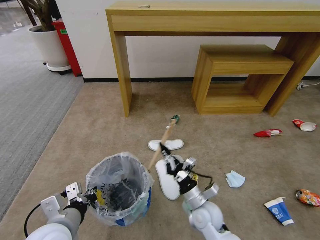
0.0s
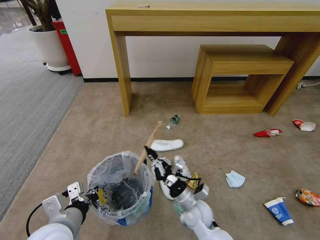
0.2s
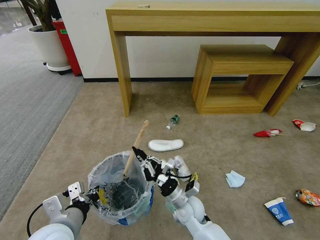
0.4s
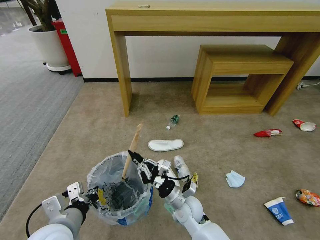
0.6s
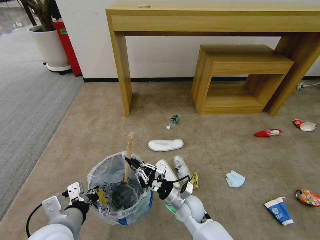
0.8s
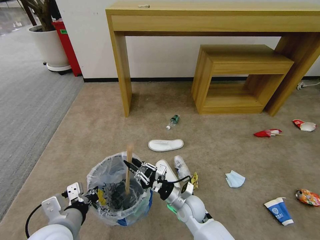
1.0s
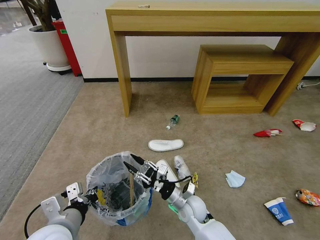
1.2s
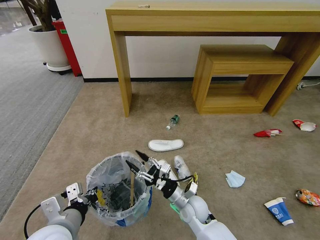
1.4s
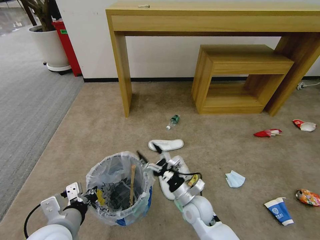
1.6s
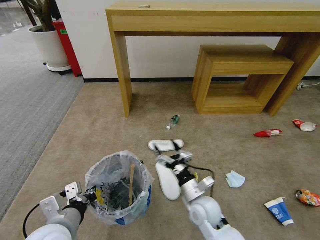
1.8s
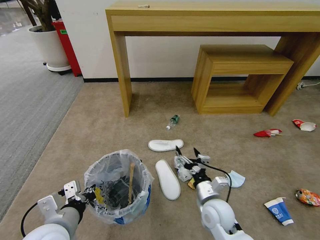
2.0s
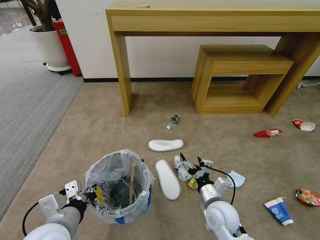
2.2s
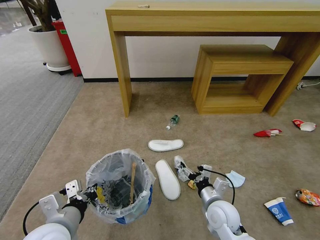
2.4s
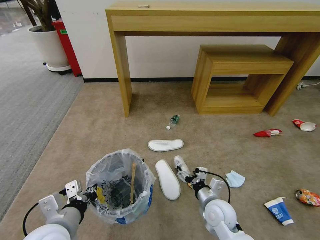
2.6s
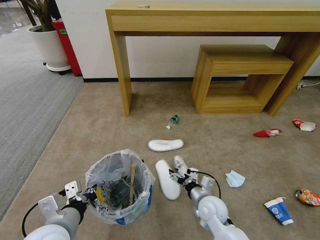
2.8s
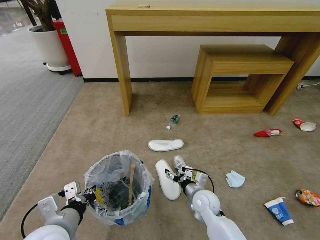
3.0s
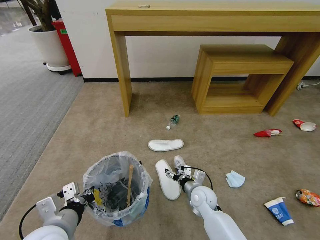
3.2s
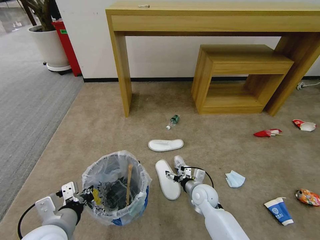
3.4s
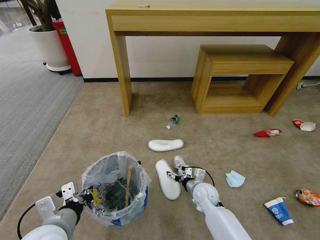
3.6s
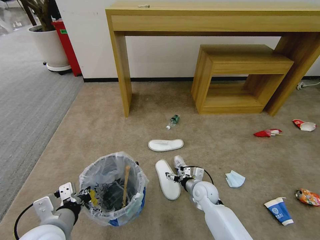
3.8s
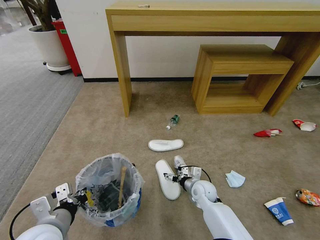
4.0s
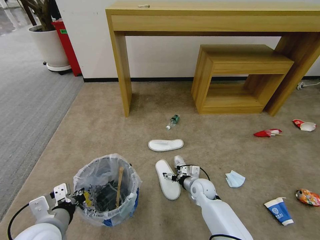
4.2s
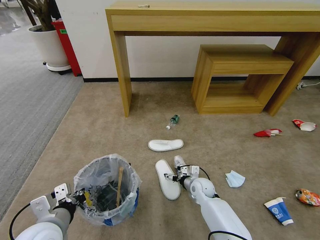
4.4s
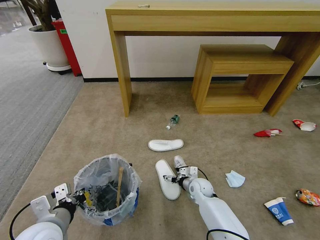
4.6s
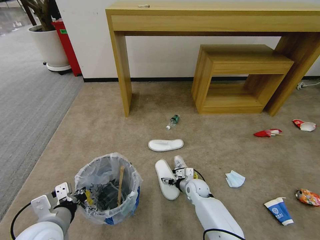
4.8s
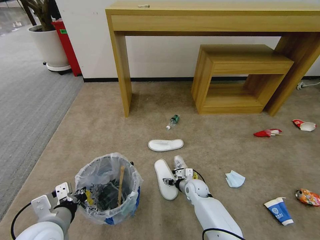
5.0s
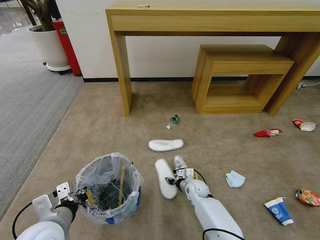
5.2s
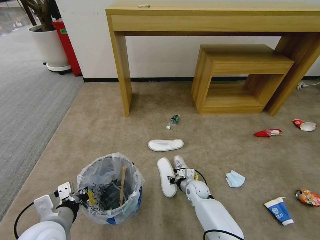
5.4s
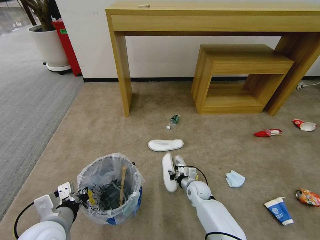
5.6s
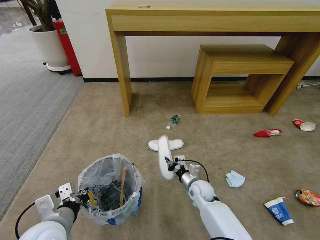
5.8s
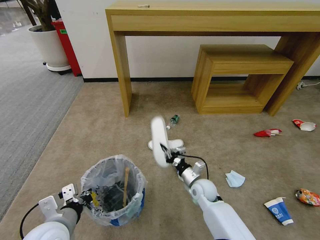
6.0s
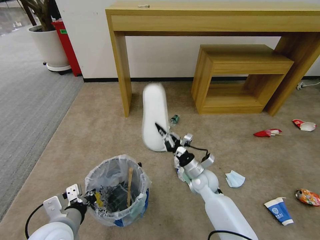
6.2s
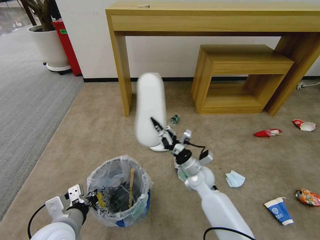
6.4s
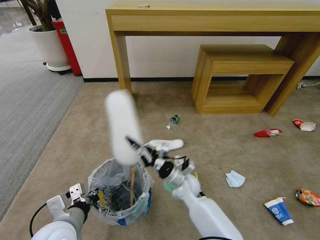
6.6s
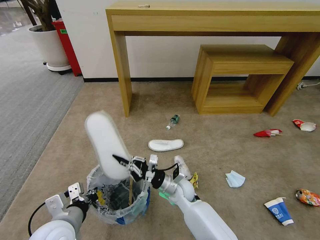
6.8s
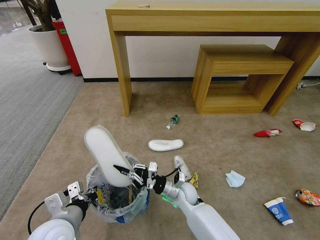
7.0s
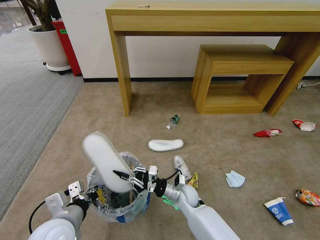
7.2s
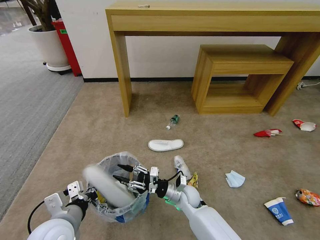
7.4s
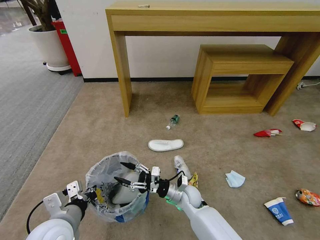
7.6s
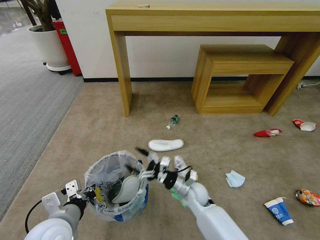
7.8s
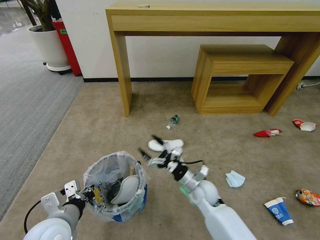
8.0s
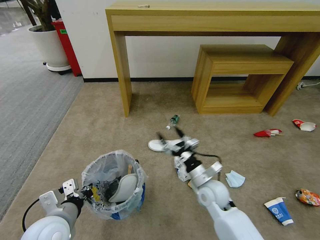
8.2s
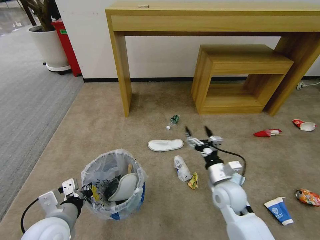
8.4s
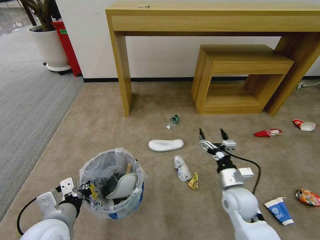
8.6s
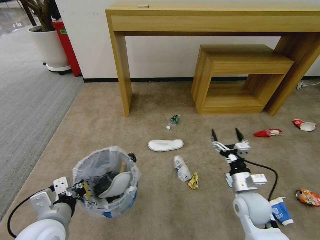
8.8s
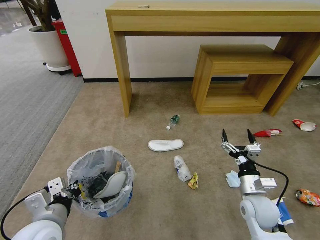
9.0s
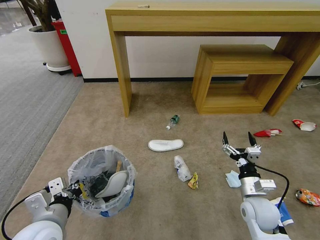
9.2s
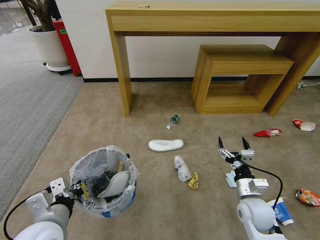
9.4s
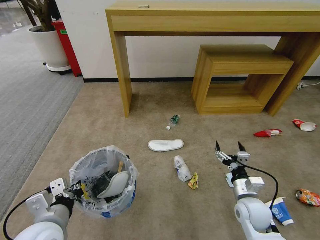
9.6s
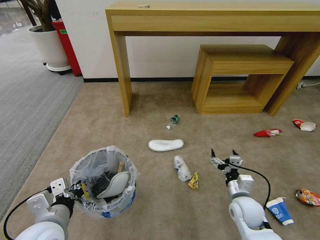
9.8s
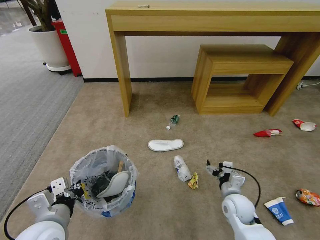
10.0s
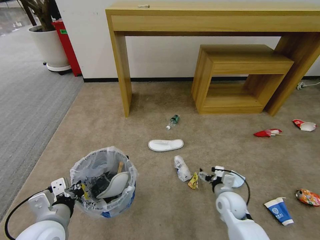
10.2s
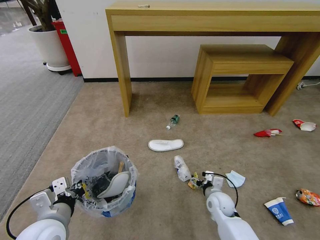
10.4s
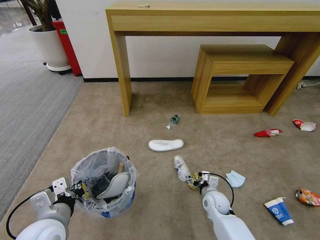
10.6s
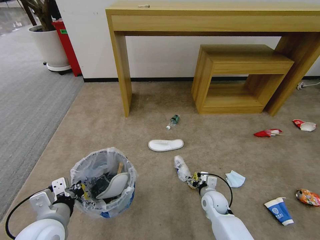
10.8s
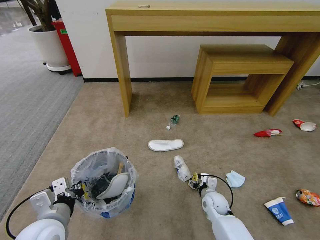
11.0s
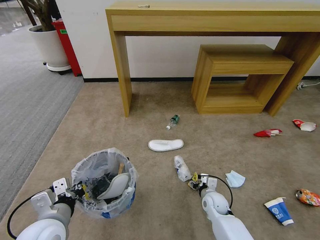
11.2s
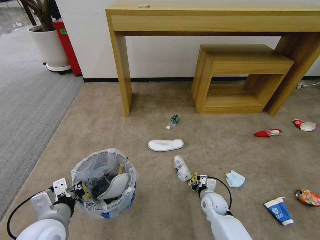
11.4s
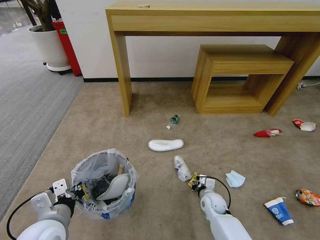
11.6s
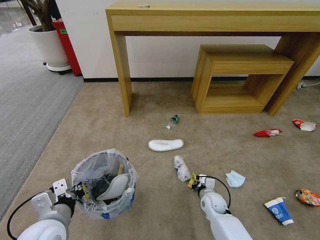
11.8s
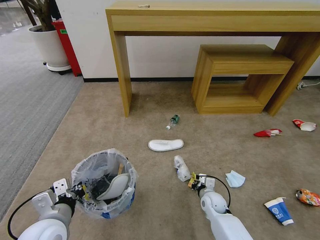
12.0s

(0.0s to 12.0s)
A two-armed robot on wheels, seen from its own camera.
Task of the whole recording: Pick up the trash bin and place the garbage on the floor into it.
0.0s - 1.6s: The right gripper opens.
1.6s - 3.0s: The right gripper shifts by some 5 cm.
3.0s - 4.4s: The right gripper travels forward by approximately 5 cm.
4.4s - 6.0s: The right gripper ends up roughly 5 cm from where it was, and closes up.
6.0s - 7.6s: The right gripper travels to the left by approximately 5 cm, and opens up.
7.6s - 9.0s: The right gripper shifts some 20 cm to the right and upward, and opens its fingers.
9.0s - 10.4s: The right gripper is displaced downward, to the left and forward by about 15 cm.
10.4s - 12.0s: The right gripper moves approximately 5 cm, and closes.

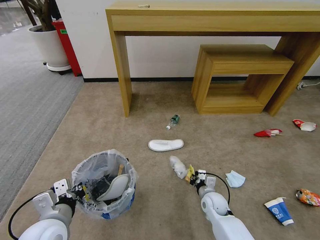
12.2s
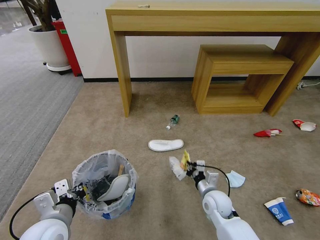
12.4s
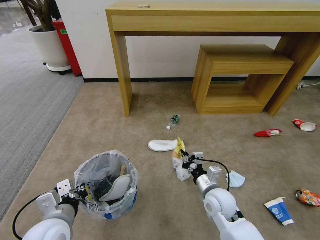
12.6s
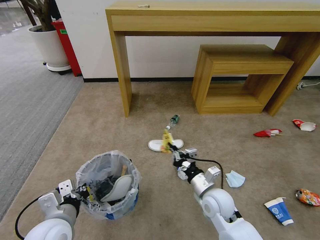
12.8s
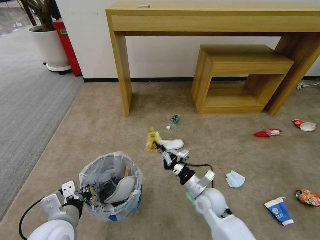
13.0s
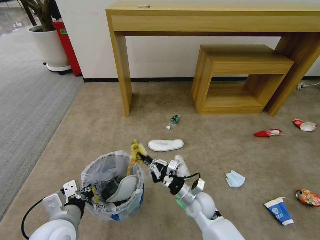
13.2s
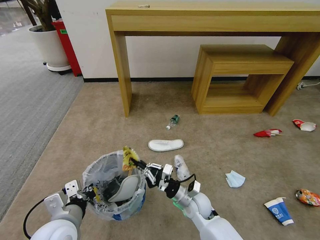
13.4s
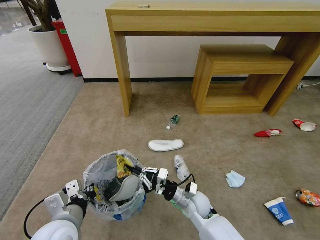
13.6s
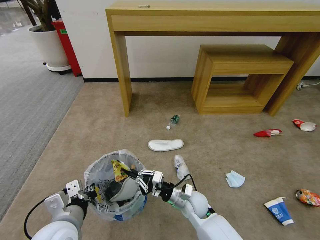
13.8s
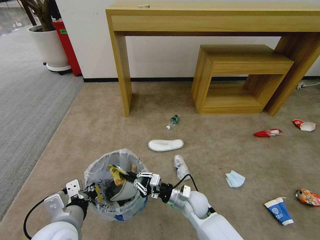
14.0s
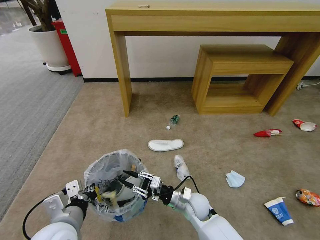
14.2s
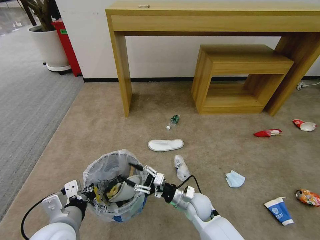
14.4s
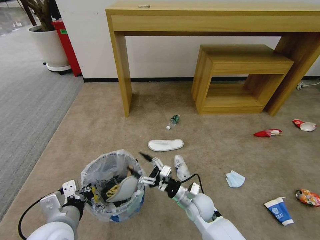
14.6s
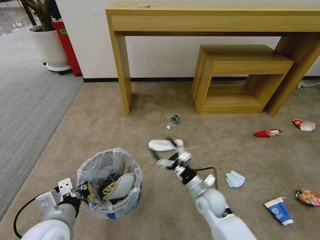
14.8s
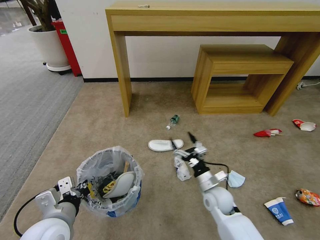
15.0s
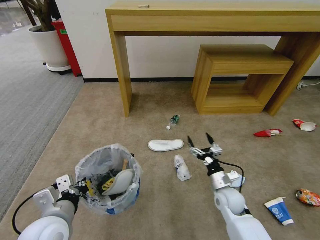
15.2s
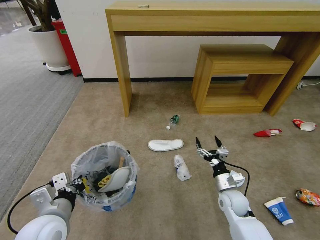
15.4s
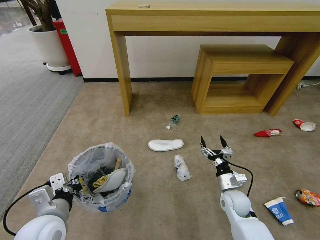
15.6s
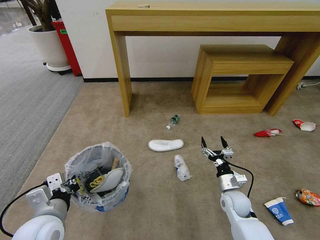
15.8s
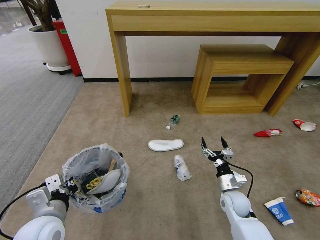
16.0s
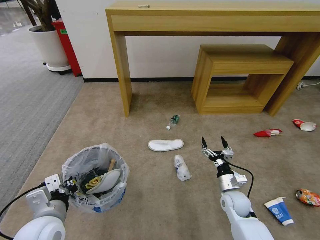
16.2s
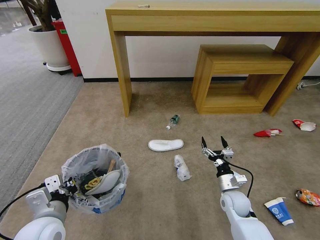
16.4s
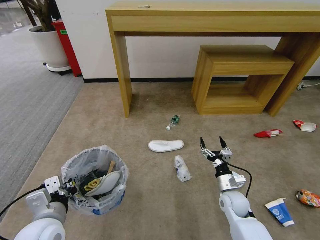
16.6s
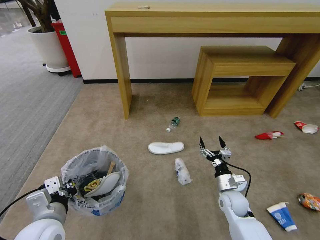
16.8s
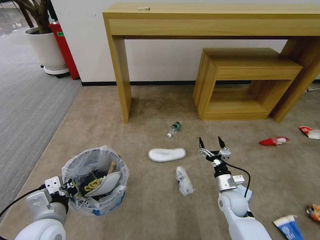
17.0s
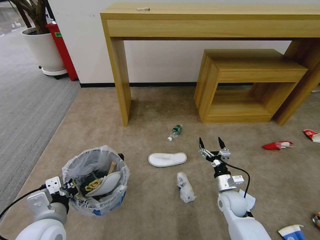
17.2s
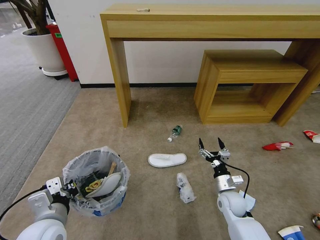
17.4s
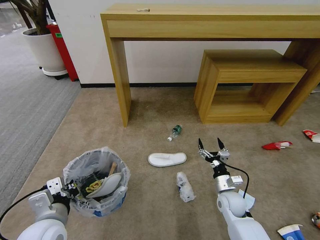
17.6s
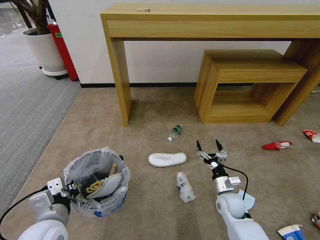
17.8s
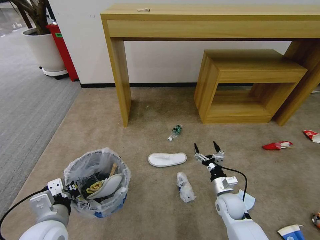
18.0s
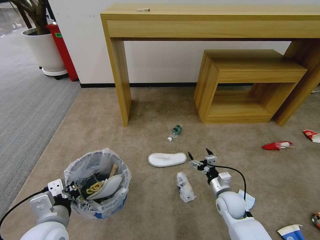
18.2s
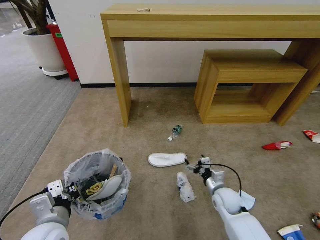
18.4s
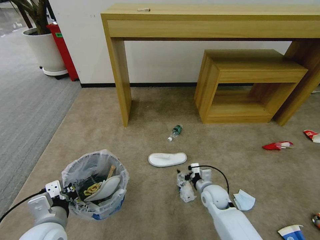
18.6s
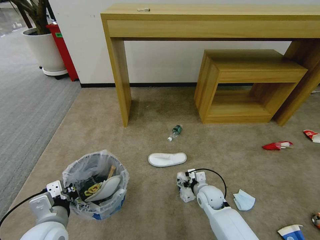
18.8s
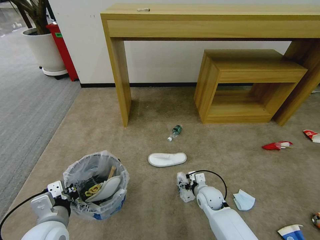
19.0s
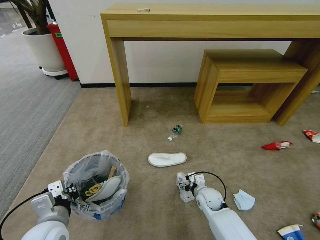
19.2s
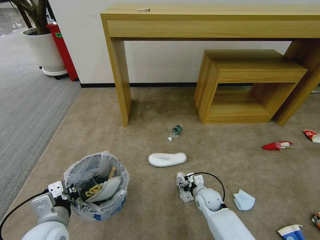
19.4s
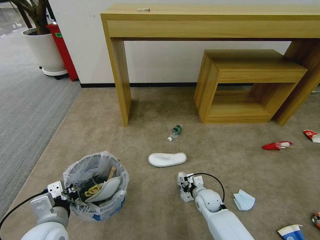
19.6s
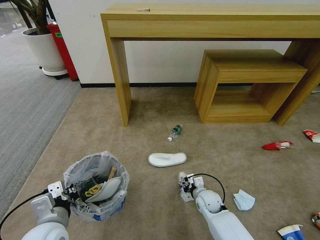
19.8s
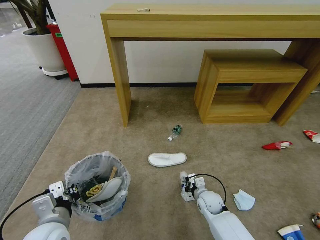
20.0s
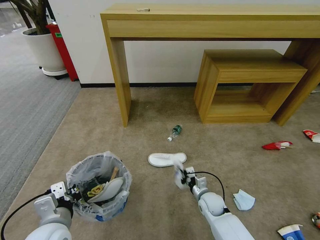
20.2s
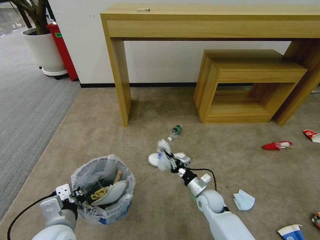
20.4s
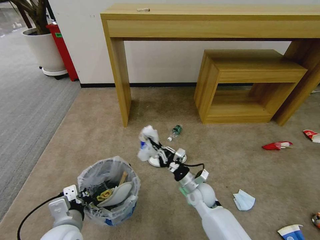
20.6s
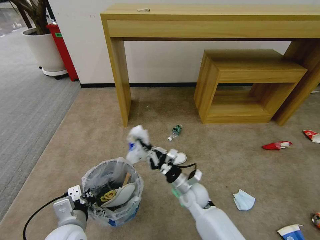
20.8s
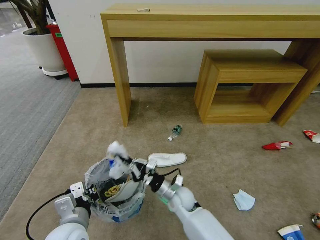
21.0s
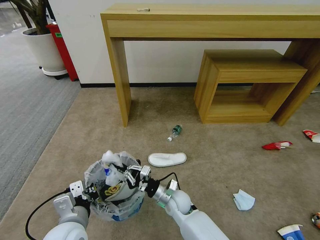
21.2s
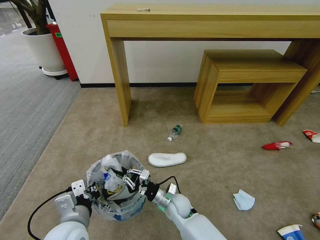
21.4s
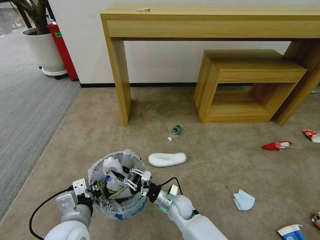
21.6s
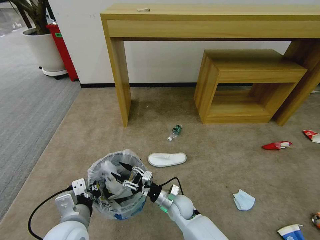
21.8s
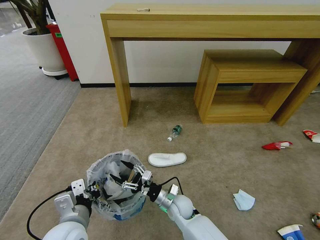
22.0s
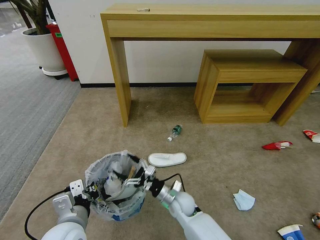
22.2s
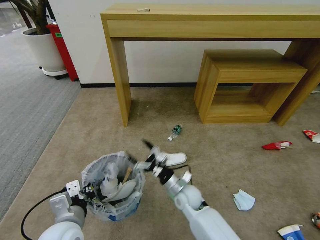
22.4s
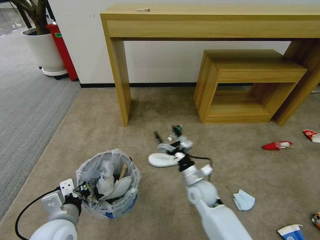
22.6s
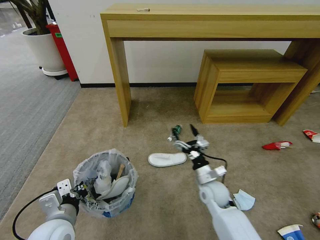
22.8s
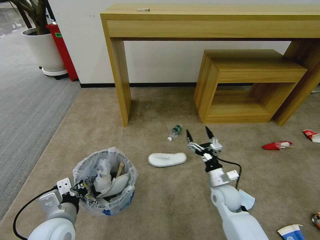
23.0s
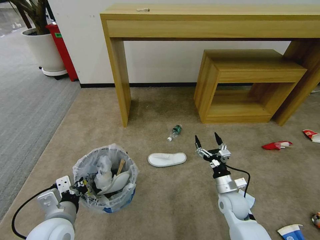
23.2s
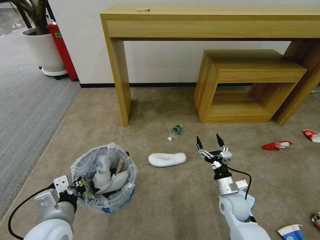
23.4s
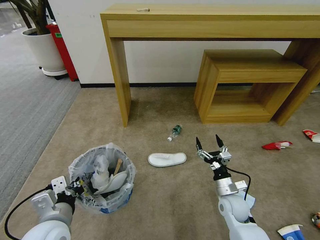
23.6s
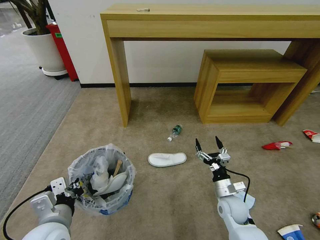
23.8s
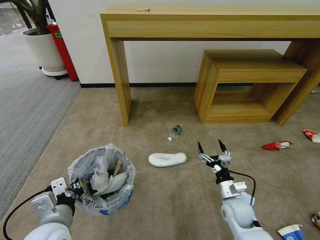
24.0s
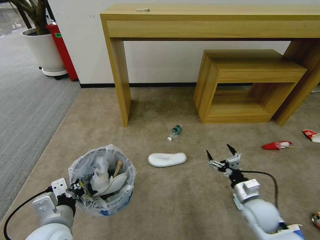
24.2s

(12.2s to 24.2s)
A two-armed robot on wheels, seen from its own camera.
Task of the whole recording: Pick up the trash bin and place the garbage on the floor into it.
12.2s - 13.8s: The right gripper heads to the left and upward, covering approximately 10 cm.
13.8s - 15.2s: The right gripper goes roughly 15 cm to the right, and opens its fingers.
15.2s - 16.6s: The grippers stay close to where they were, moving slightly.
18.2s - 19.8s: The right gripper goes about 10 cm to the left and downward, and closes up.
19.8s - 21.2s: The right gripper moves to the left, some 15 cm.
21.2s - 22.6s: The right gripper heads to the right and upward, covering some 10 cm, and opens up.
22.6s - 24.2s: The right gripper travels to the right and backward by roughly 20 cm.
